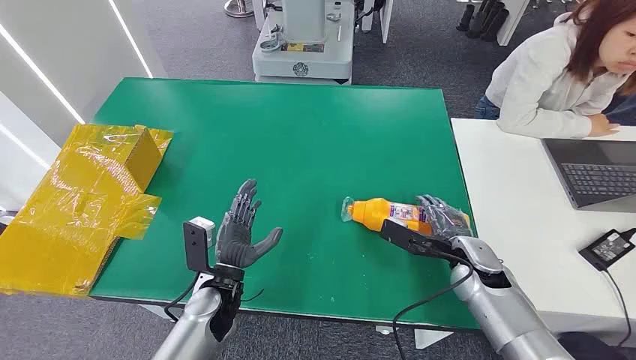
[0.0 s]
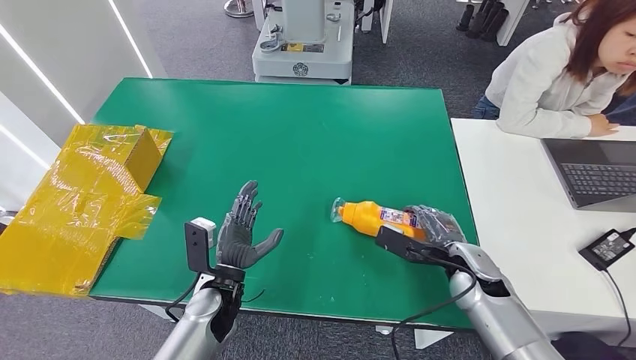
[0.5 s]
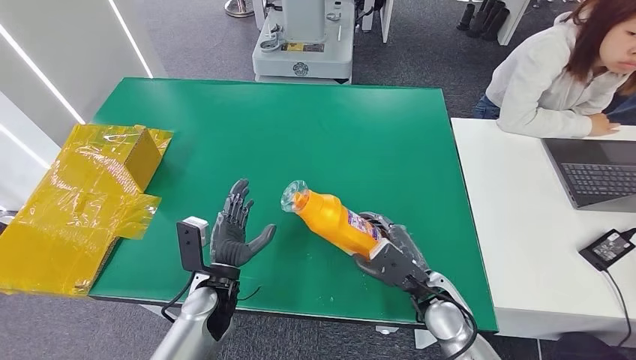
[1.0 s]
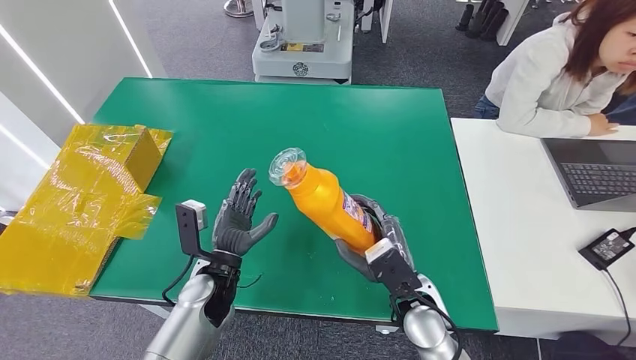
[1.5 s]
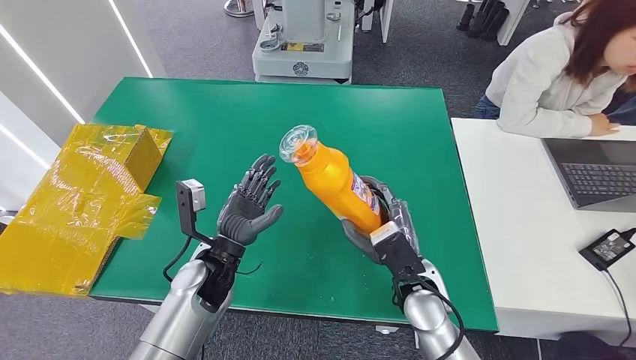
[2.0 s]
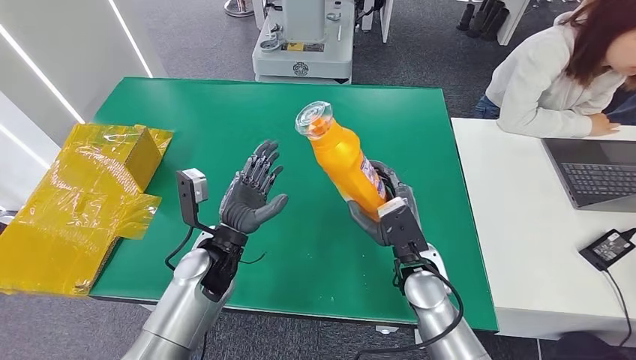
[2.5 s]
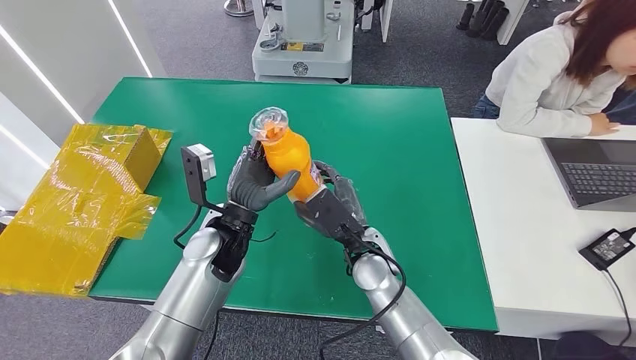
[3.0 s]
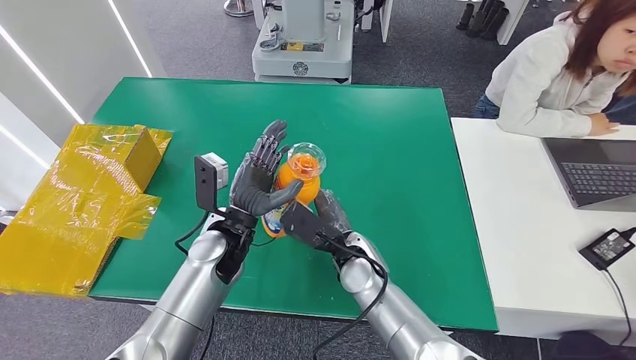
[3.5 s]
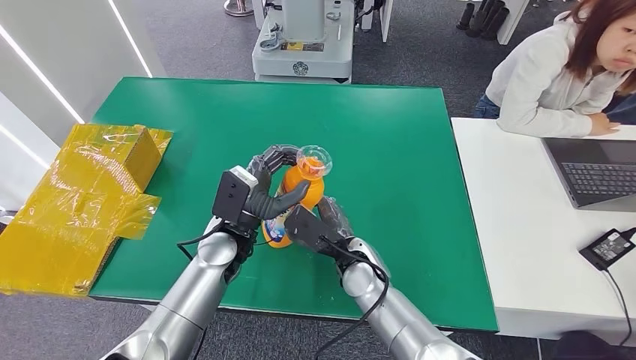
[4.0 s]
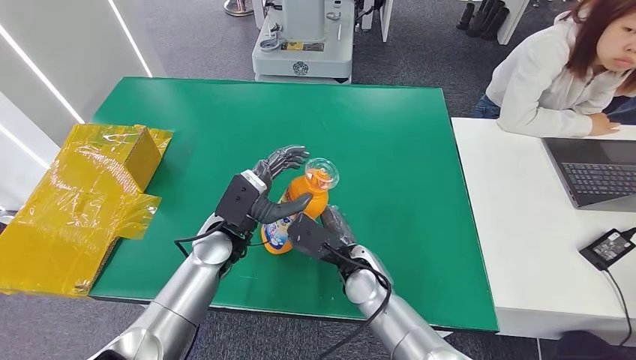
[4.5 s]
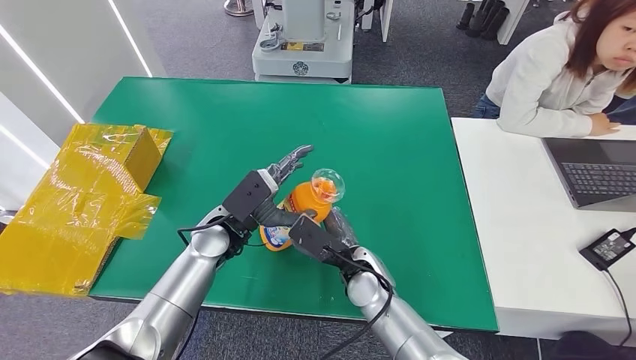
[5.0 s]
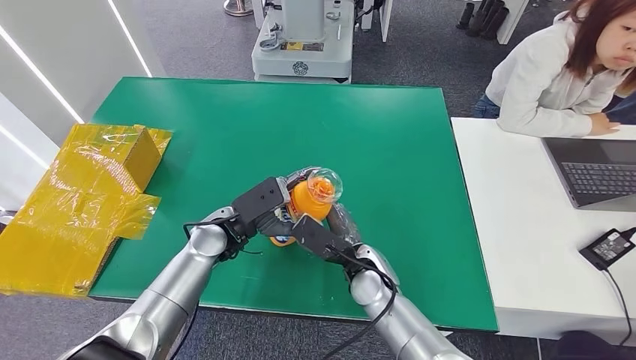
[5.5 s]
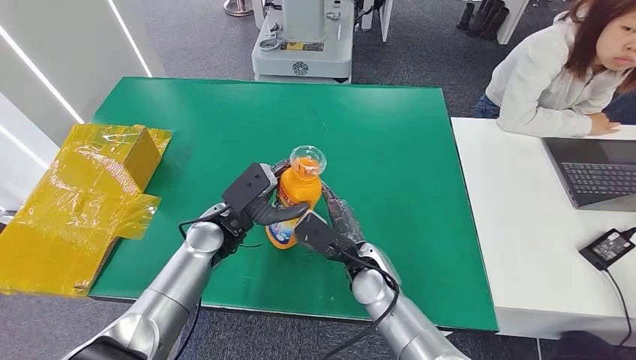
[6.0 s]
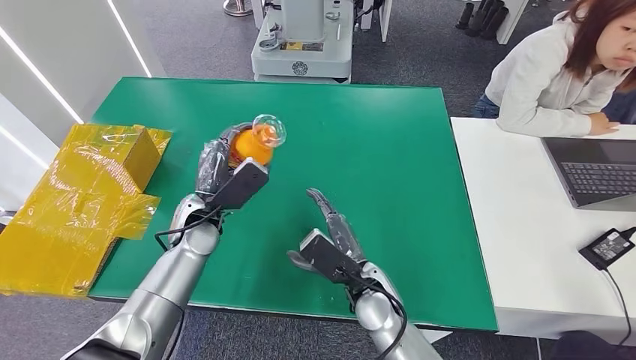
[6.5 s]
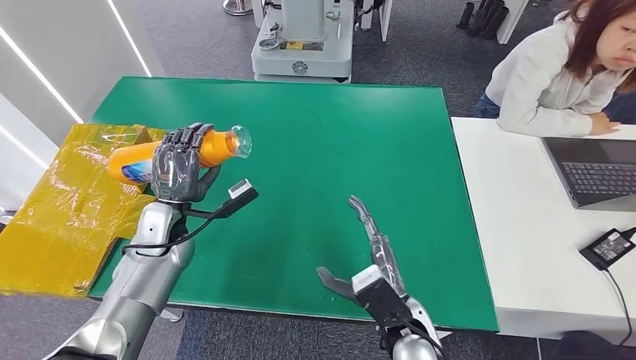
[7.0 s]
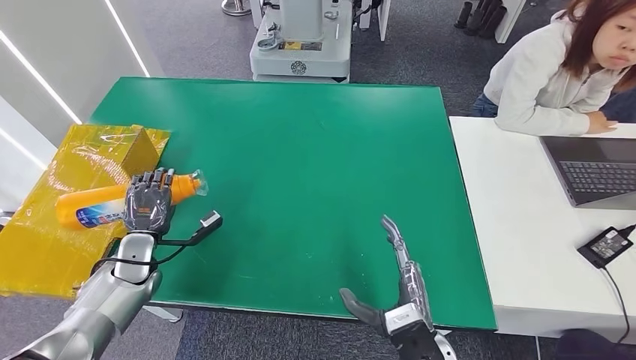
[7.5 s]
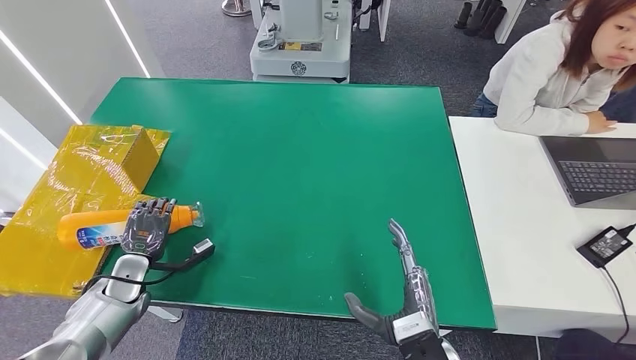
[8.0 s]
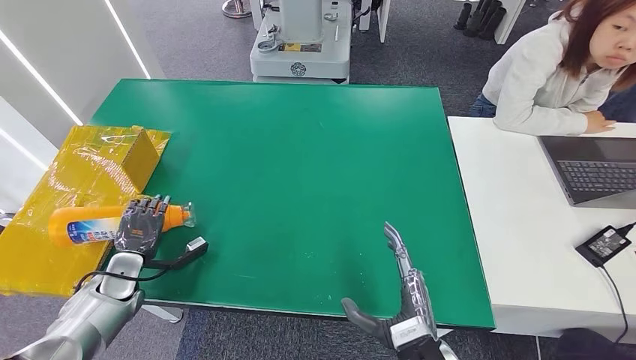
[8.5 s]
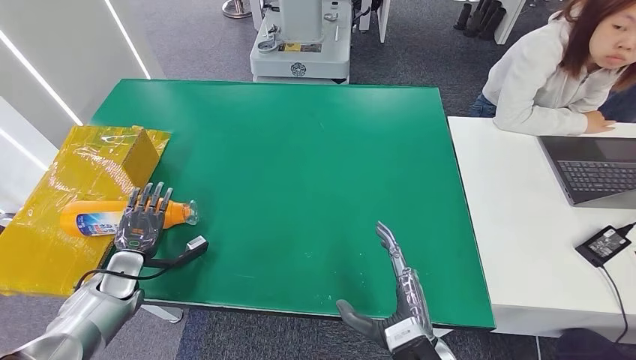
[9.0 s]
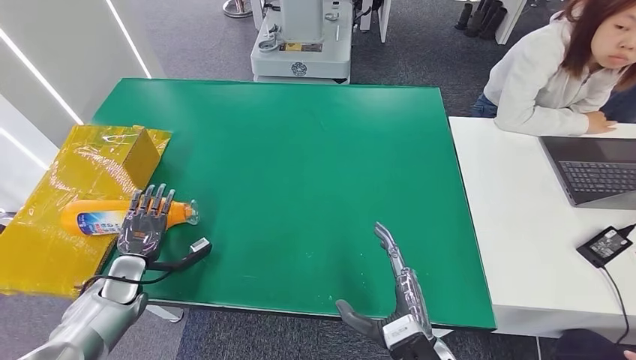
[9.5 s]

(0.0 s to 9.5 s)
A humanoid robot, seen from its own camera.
Step, 0.0 s - 1.5 s: Pick up the bottle from the table.
Step, 2.5 s - 9.5 s: Turn the bottle to the front side.
2.0 s - 4.0 s: The right hand shifts some 10 cm to the left, while the left hand shifts by roughly 5 cm.
7.5 s - 9.5 s: The left hand changes place by roughly 5 cm.
